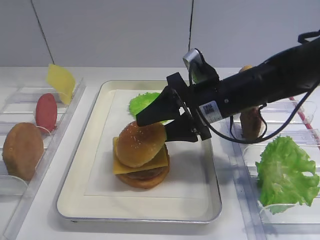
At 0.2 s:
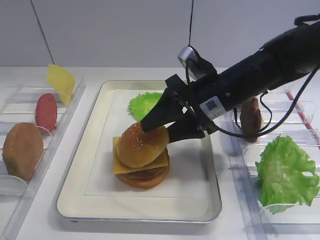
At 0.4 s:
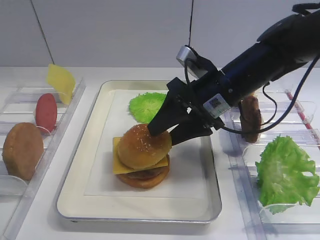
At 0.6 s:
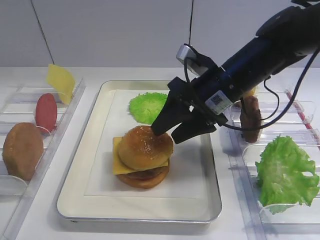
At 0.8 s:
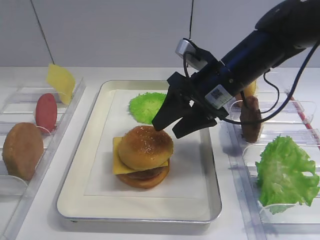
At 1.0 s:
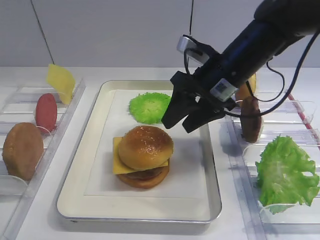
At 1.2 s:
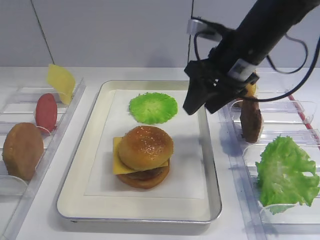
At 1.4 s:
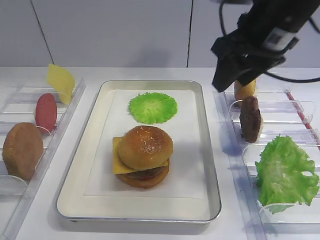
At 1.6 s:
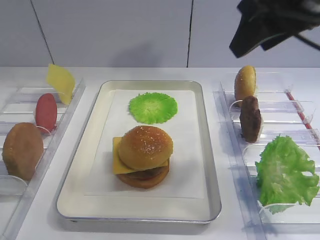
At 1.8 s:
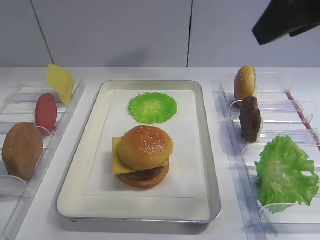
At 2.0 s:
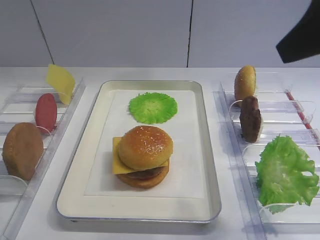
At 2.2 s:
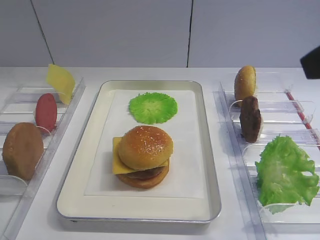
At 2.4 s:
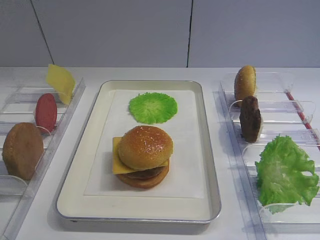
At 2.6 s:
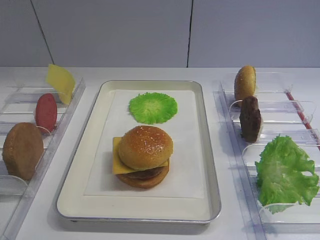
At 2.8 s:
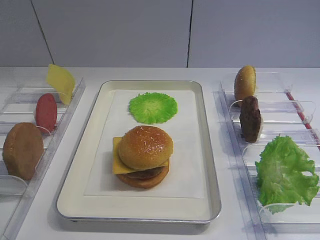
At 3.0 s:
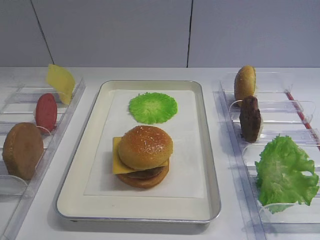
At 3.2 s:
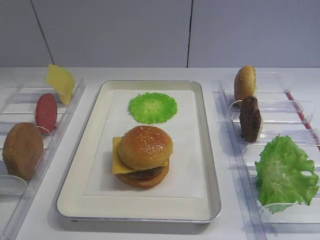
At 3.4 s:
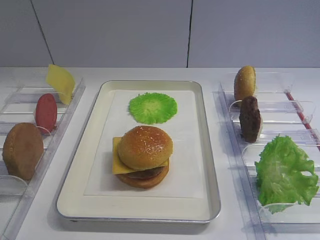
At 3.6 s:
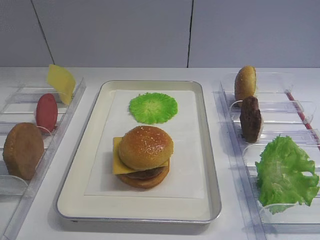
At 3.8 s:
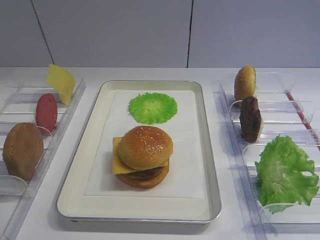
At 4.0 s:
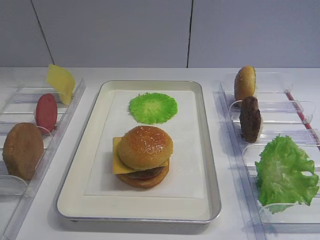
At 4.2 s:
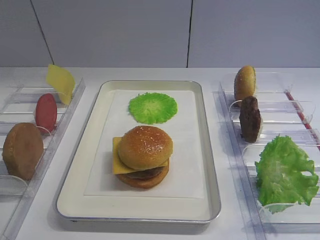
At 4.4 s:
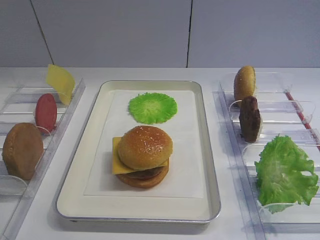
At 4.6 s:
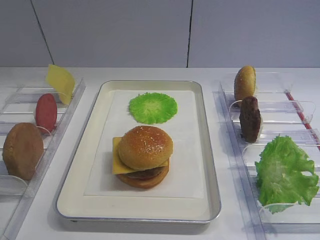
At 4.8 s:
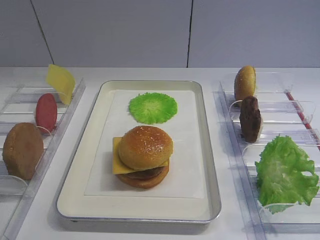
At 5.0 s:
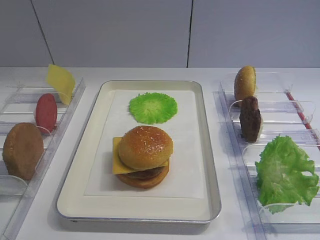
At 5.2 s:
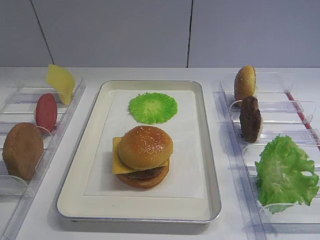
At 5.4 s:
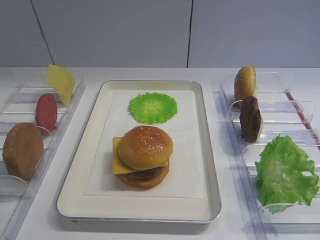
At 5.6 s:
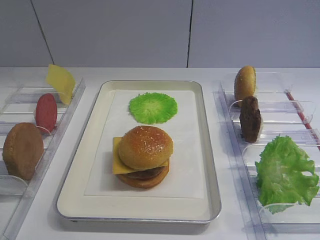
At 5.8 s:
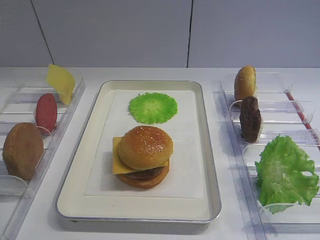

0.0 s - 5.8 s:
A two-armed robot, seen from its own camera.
0.0 s - 1.4 s: The right gripper heads upward, covering some 15 cm.
1.4 s - 2.8 s: The right gripper shifts roughly 25 cm backward.
